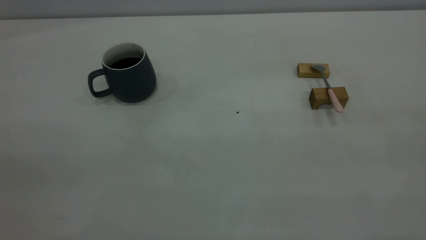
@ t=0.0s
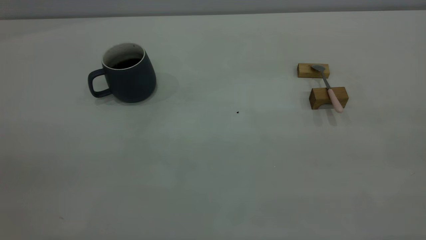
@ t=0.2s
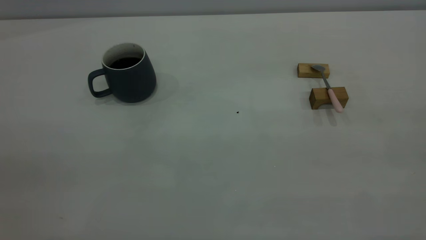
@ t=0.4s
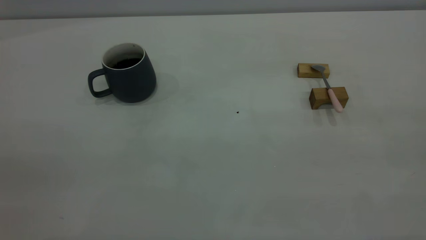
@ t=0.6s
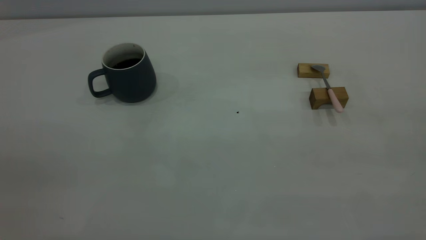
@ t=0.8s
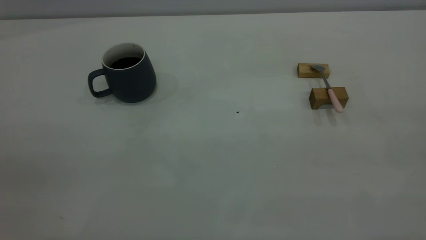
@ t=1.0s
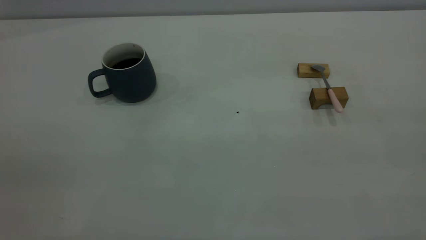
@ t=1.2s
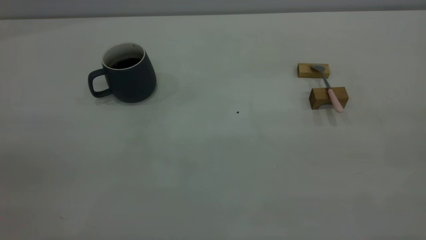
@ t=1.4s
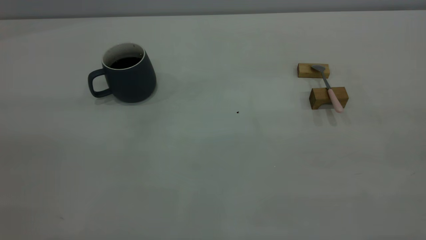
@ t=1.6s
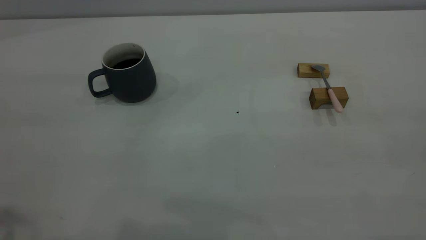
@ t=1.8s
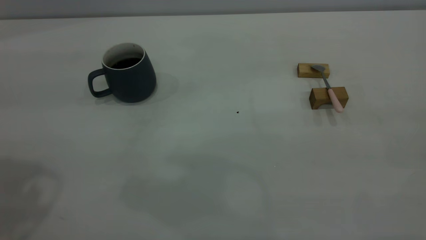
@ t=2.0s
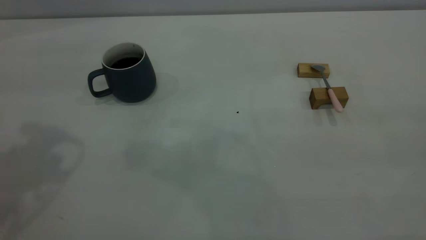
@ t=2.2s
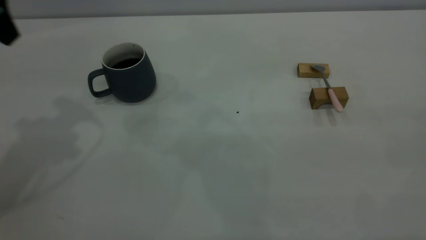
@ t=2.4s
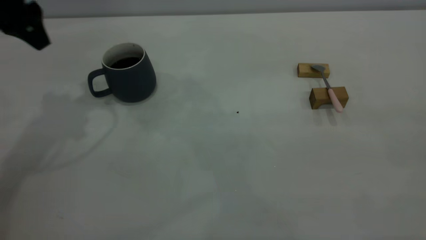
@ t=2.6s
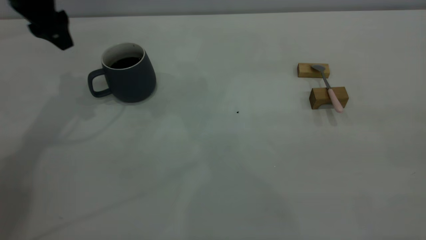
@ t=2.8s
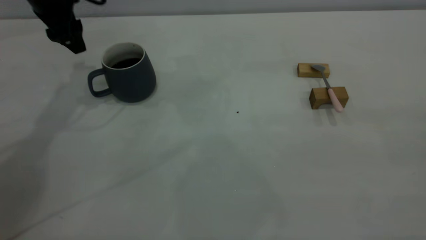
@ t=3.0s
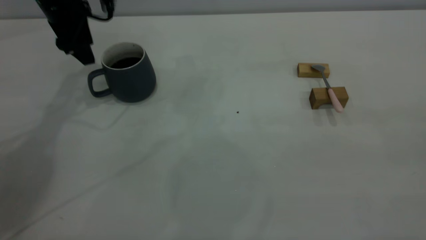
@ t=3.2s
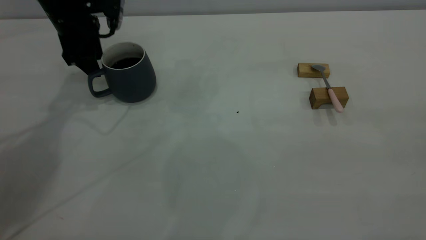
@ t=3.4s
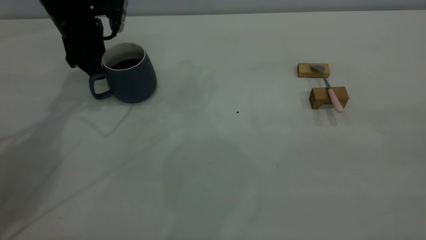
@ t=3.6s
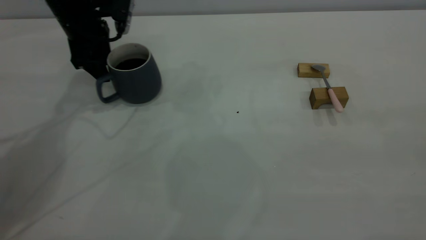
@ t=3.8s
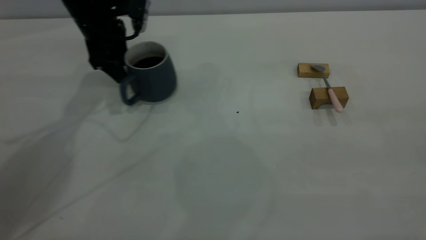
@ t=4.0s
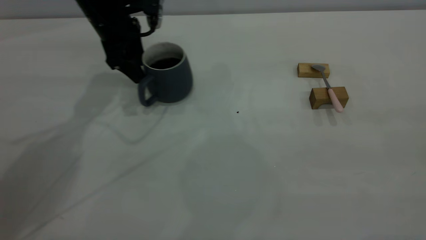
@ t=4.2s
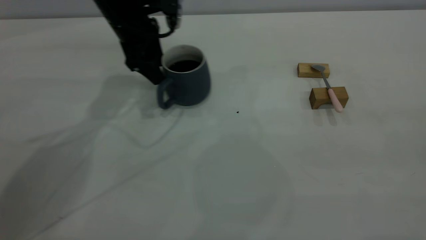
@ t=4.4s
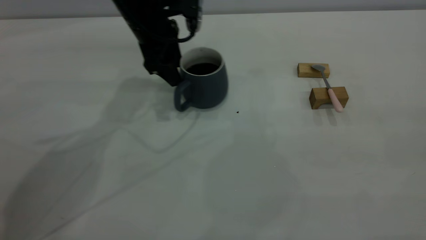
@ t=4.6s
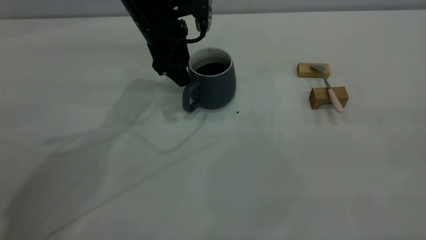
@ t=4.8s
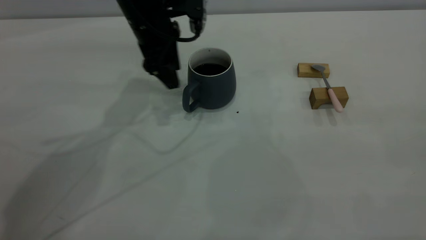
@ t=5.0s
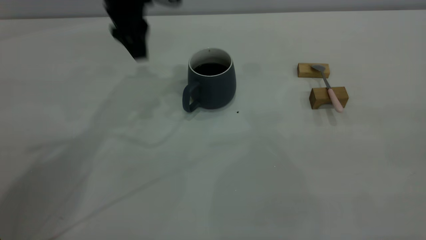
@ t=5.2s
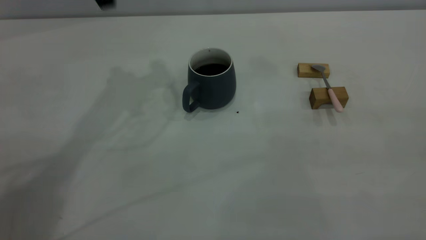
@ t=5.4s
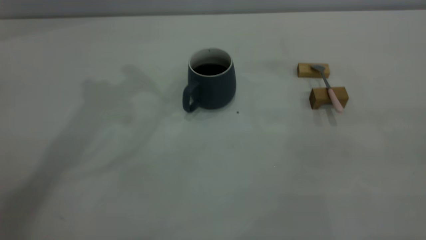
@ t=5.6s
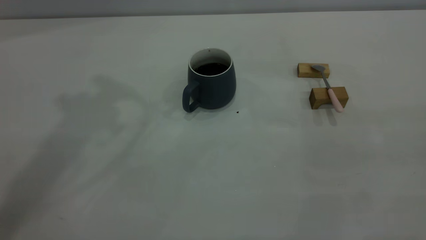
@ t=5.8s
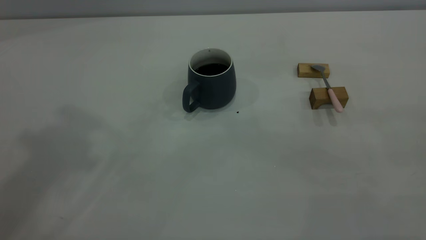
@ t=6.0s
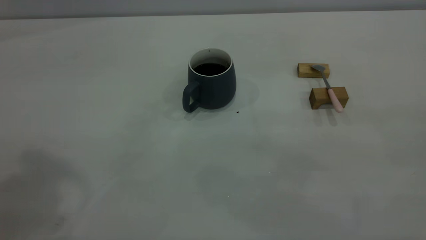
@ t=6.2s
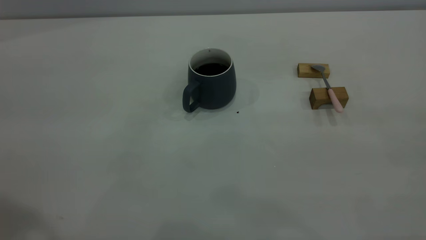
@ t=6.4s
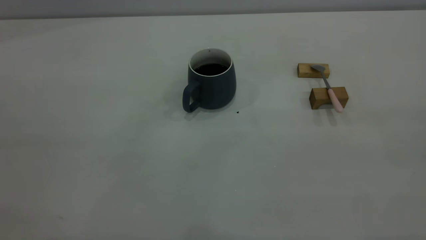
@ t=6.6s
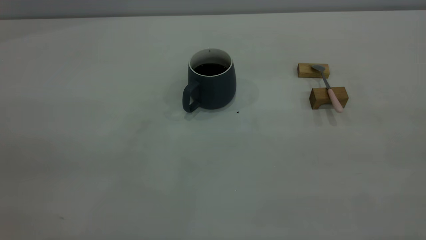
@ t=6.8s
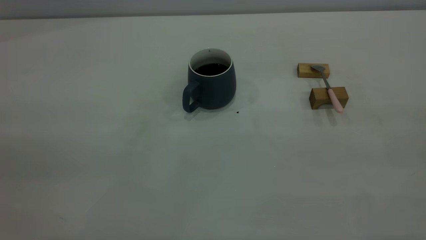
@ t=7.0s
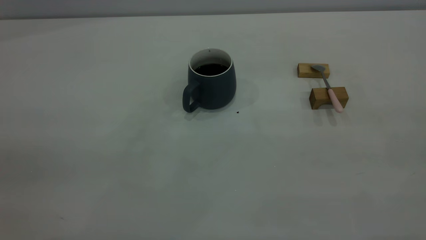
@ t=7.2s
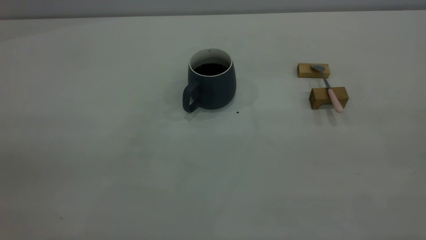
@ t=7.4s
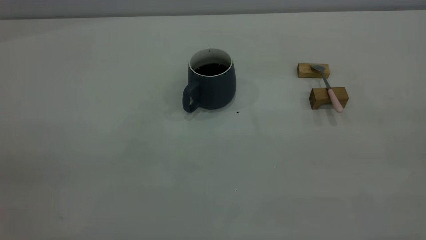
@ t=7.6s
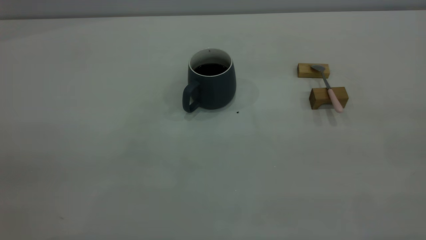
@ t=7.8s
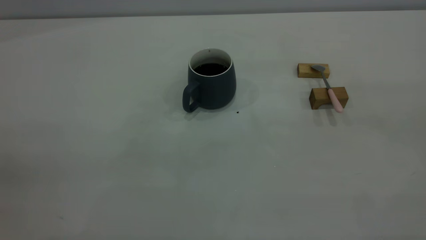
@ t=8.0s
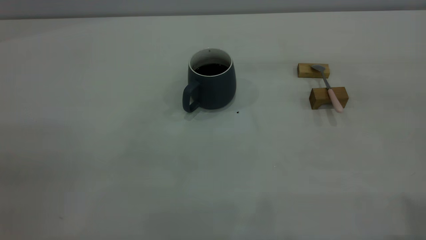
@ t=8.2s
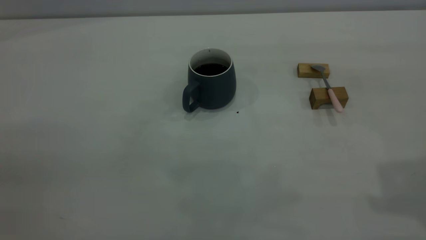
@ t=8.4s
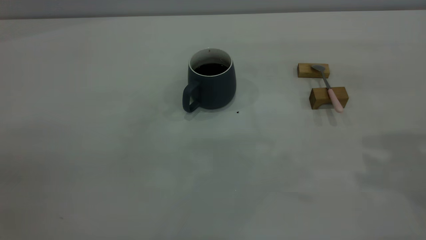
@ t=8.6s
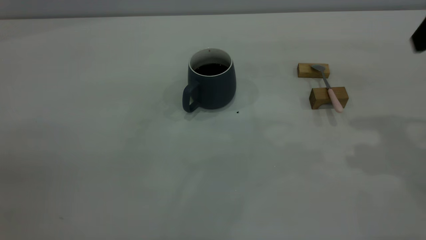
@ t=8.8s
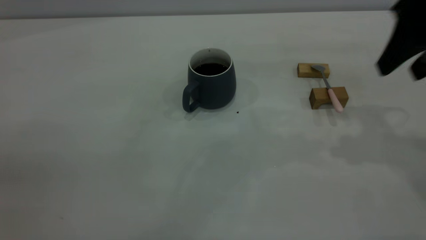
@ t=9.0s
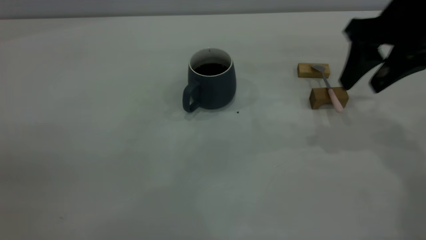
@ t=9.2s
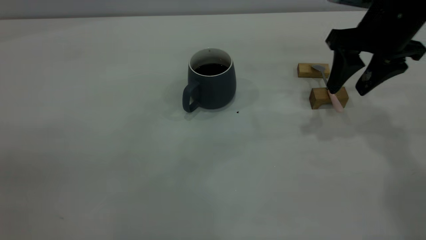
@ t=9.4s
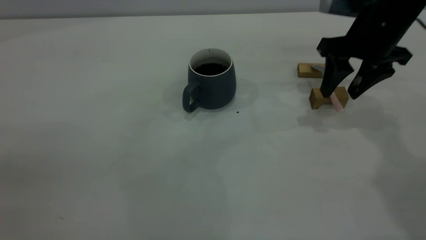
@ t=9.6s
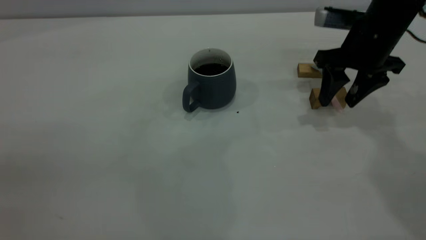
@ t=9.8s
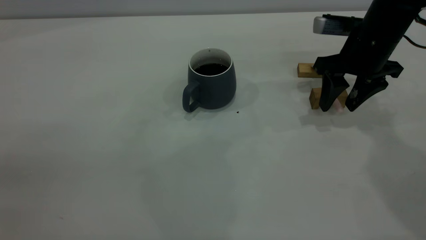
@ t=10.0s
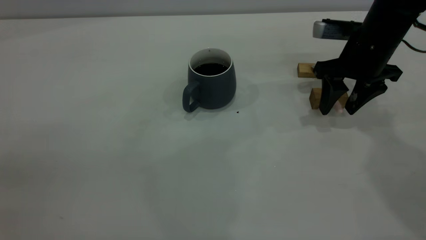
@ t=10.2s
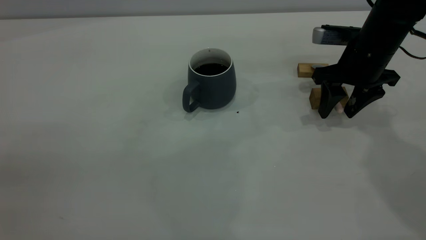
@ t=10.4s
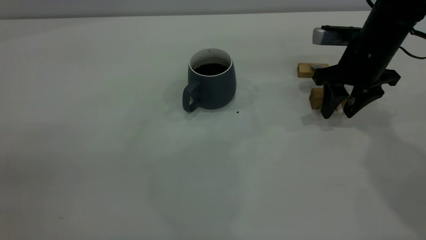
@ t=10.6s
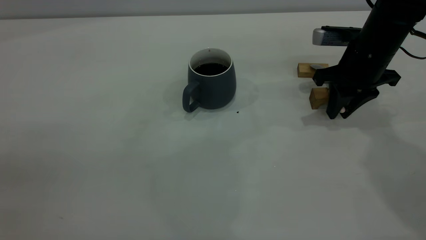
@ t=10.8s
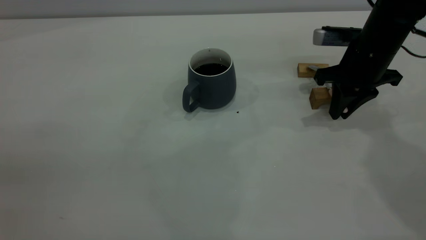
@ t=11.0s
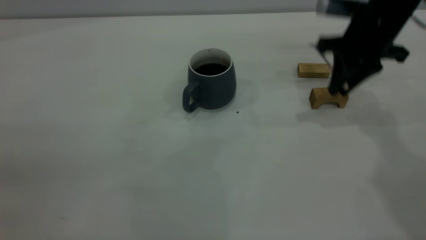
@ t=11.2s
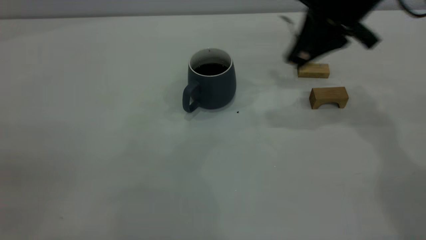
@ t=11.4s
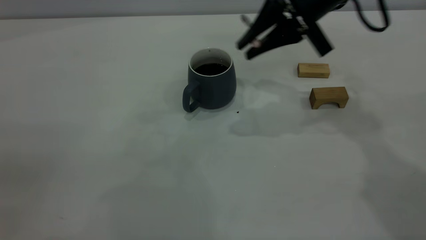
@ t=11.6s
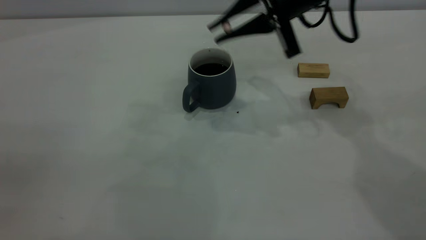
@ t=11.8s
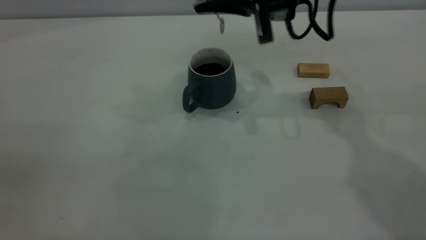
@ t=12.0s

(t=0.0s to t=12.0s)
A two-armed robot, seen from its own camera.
Step, t=0.0s - t=5.0s: Move the cup with coffee to the center of view.
Step, t=5.2s - t=11.2s: Pick up the spoon.
t=1.6s - t=3.0s: The left gripper heads forward and downward, covering approximately 40 cm.
t=3.0s - t=4.4s: The left gripper heads to the right, covering approximately 10 cm.
t=4.4s - t=6.0s: The left gripper is displaced upward and backward by about 40 cm.
t=7.6s - t=9.0s: The right gripper travels forward and downward by about 35 cm, and opens its fingers.
t=9.0s - t=10.4s: The right gripper goes roughly 15 cm downward and forward.
t=10.4s - t=12.0s: The right gripper goes approximately 15 cm to the left and upward, and closes up.

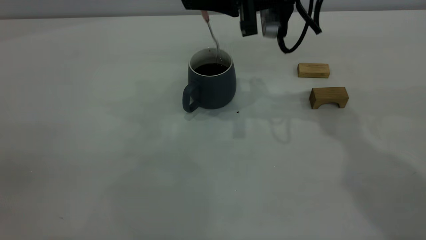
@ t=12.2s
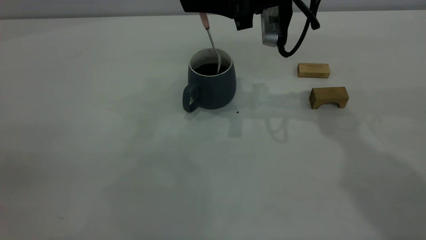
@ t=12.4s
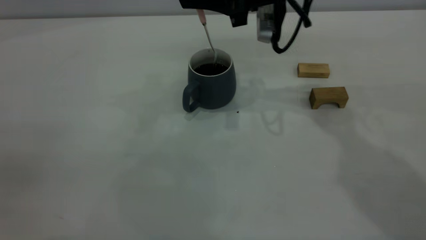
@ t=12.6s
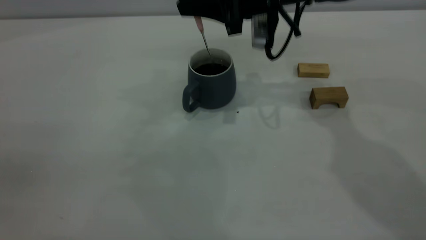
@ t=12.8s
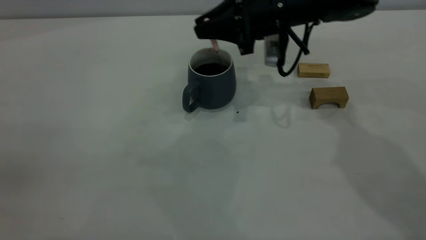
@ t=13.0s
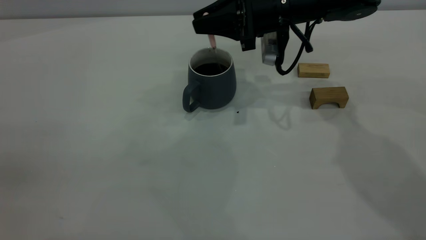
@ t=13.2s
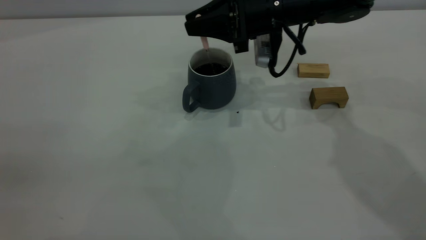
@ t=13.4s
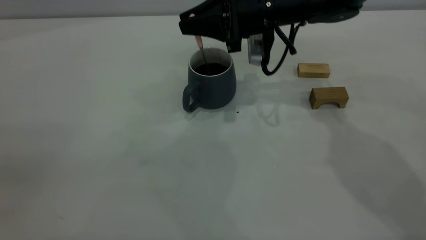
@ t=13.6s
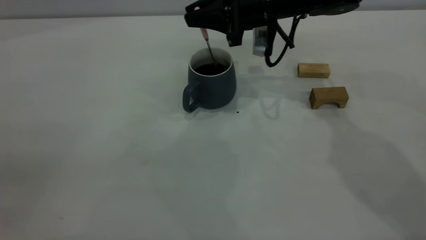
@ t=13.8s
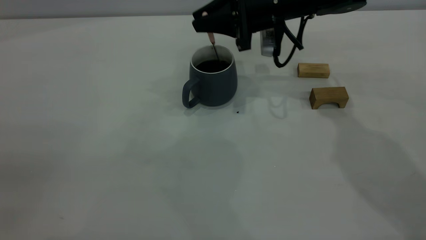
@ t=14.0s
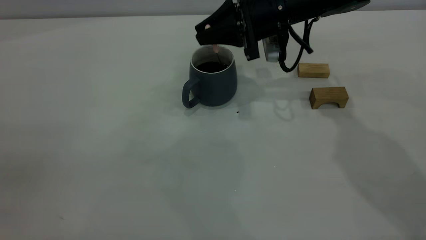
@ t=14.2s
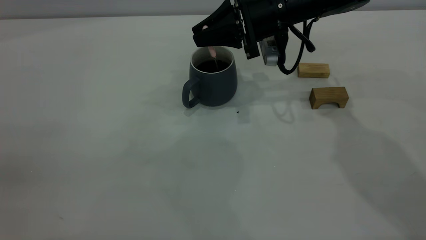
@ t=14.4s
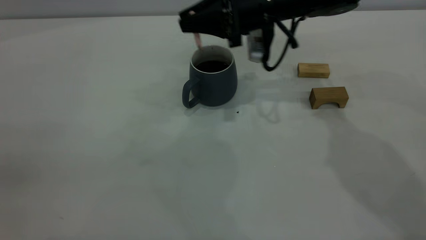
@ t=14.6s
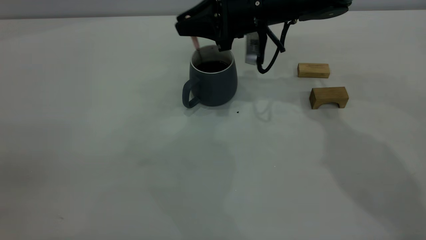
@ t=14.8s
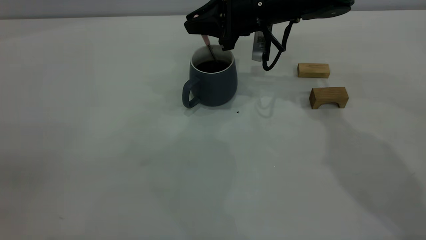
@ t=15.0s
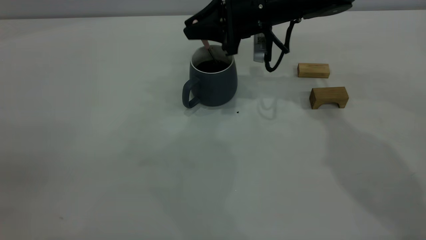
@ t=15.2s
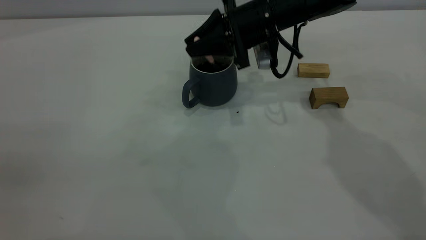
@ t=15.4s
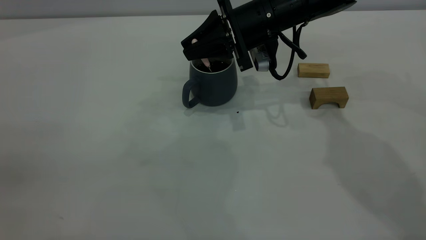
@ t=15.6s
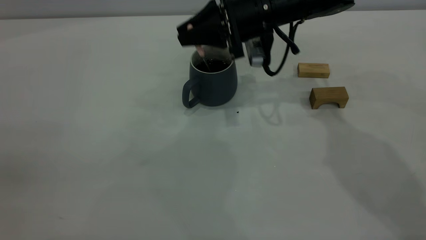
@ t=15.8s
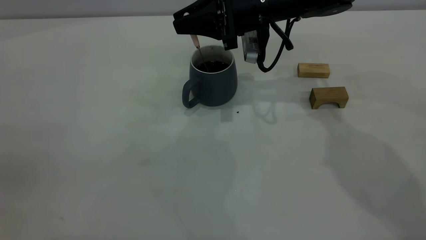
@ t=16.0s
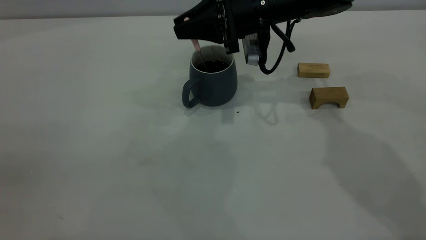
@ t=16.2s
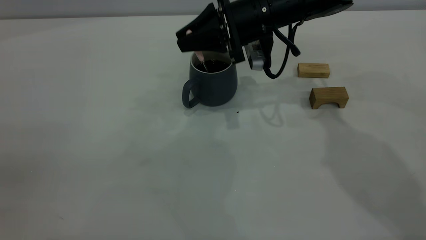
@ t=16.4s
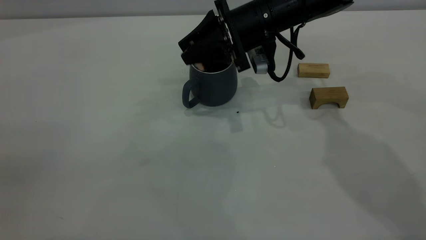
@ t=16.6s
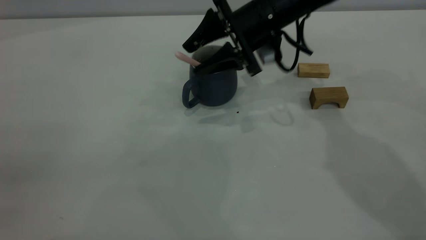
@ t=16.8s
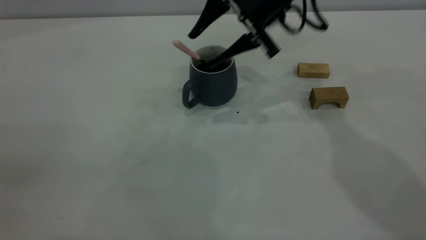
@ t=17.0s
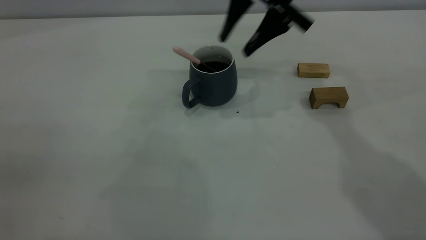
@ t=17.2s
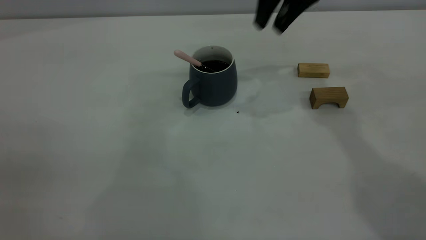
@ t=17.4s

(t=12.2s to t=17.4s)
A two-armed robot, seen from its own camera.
Step, t=12.2s - t=17.0s: Stir the coffee in the cup.
t=12.2s - t=14.0s: The right gripper goes approximately 10 cm downward and forward.
t=14.0s - t=15.6s: The grippers make only small movements.
t=15.6s - t=17.4s: The right gripper travels upward by about 15 cm, and opens up.
